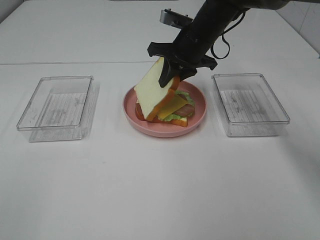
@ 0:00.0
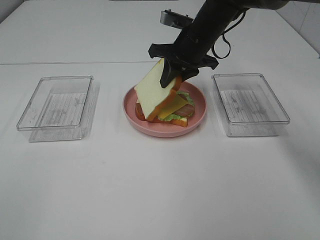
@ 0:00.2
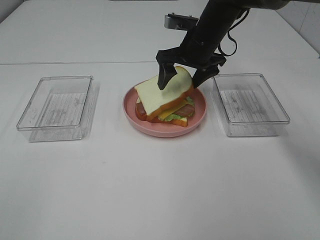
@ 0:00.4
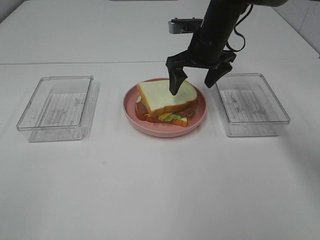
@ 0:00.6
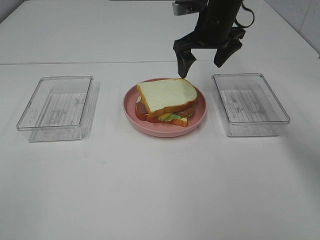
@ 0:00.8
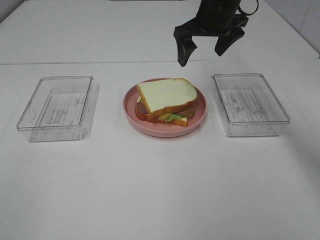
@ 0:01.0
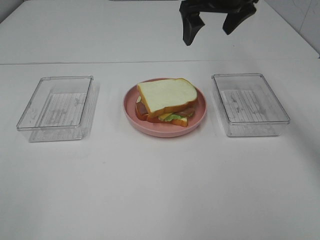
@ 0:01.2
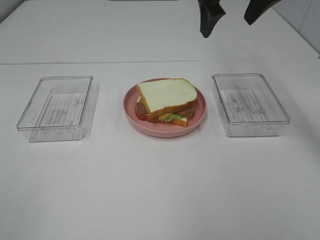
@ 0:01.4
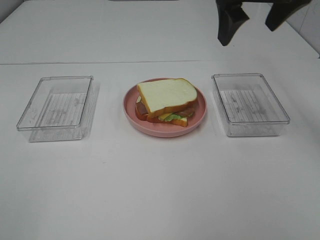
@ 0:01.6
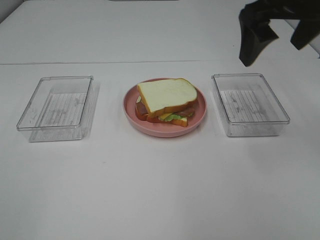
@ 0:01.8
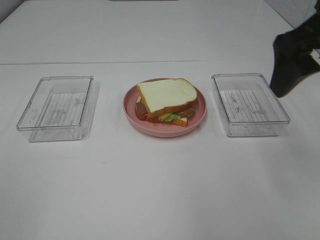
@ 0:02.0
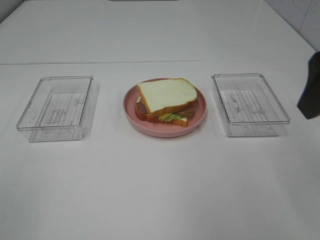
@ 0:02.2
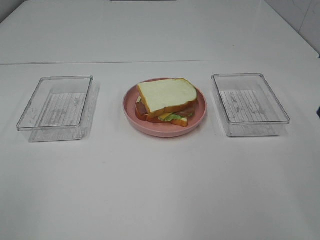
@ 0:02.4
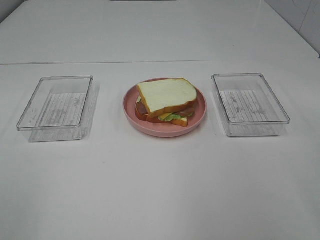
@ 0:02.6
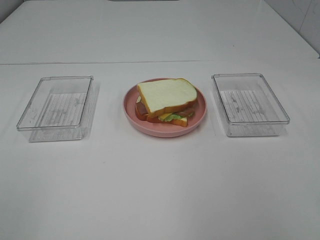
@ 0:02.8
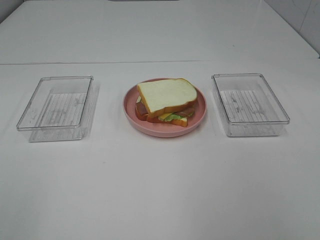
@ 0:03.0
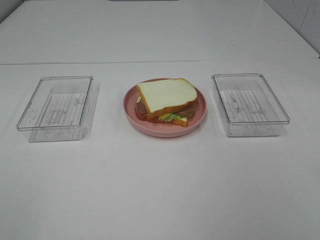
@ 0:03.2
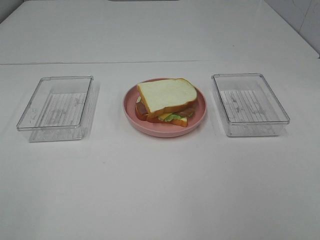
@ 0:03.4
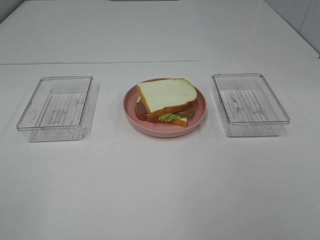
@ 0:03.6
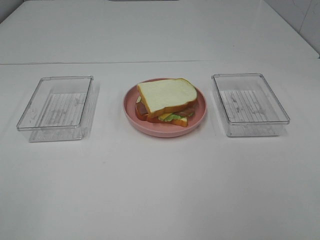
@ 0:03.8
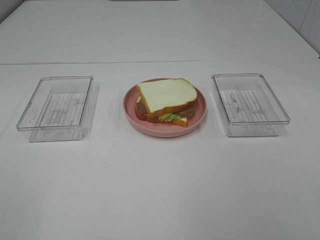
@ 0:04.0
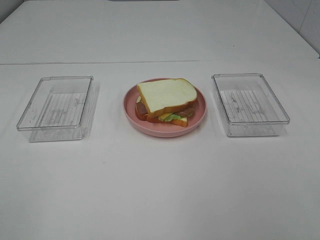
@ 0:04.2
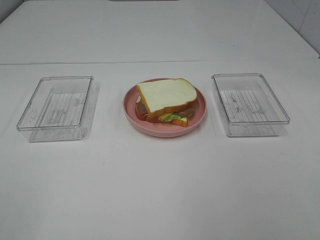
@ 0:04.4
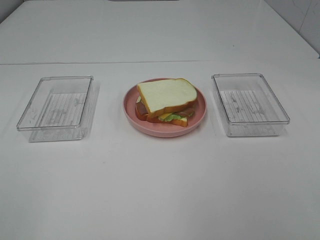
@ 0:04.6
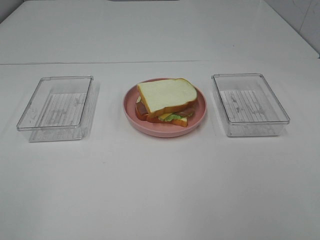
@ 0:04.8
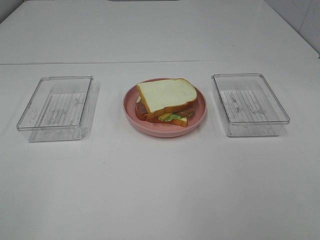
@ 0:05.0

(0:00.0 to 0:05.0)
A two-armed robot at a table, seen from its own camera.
Task of the whole recording: Make sandwiches.
0:00.0 - 0:01.6: The right gripper travels upward, backward and to the right by about 20 cm, and opens its fingers.
0:01.6 - 0:03.4: The right gripper shifts approximately 35 cm backward.
